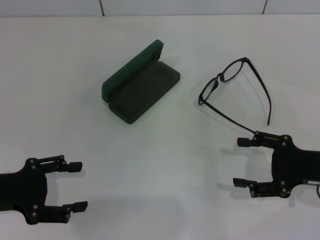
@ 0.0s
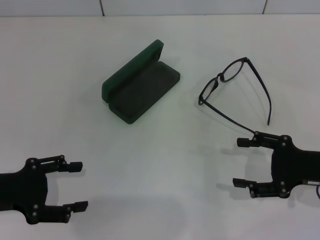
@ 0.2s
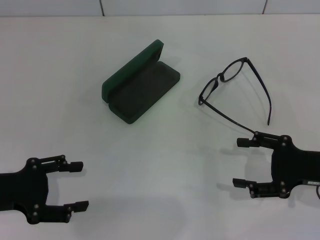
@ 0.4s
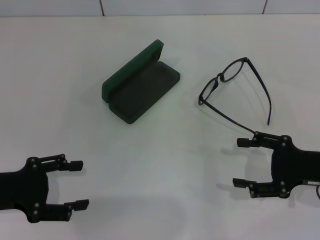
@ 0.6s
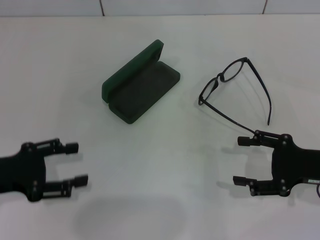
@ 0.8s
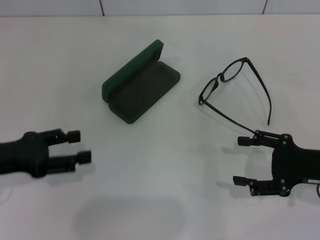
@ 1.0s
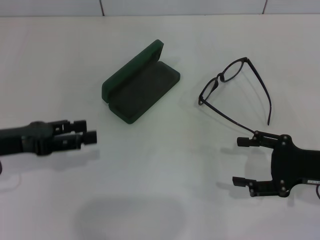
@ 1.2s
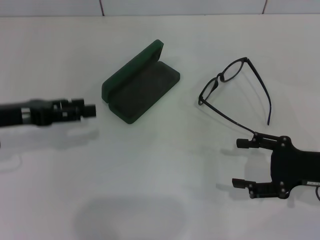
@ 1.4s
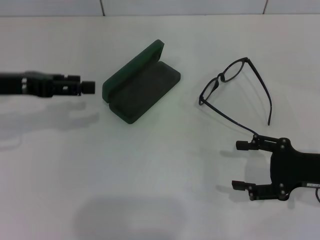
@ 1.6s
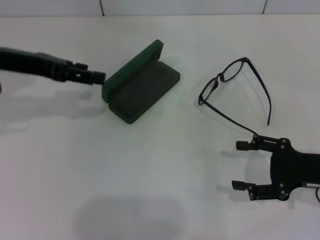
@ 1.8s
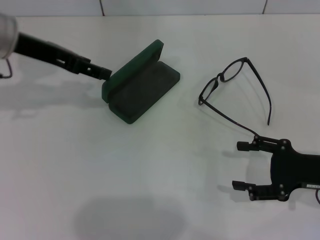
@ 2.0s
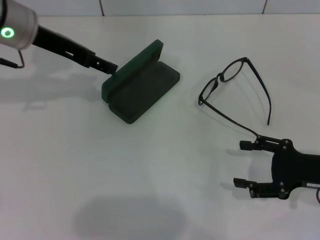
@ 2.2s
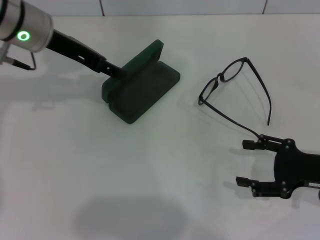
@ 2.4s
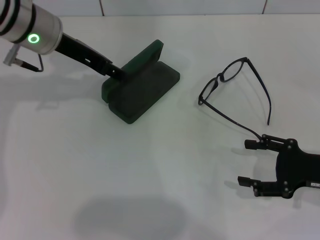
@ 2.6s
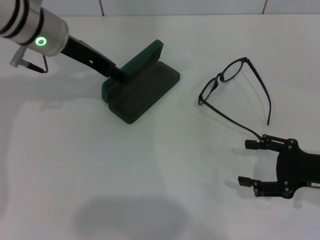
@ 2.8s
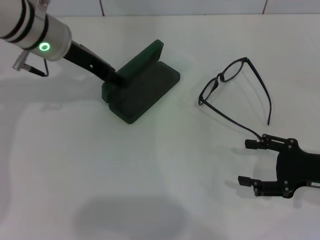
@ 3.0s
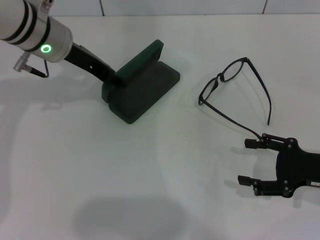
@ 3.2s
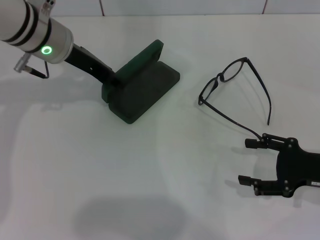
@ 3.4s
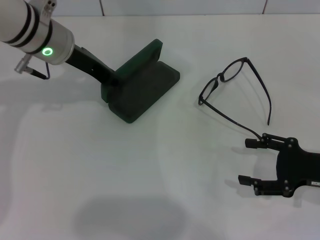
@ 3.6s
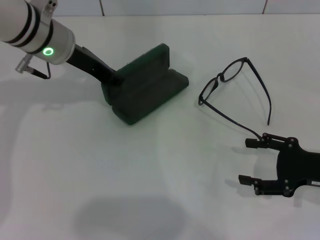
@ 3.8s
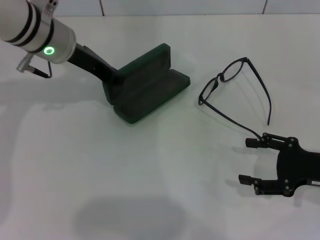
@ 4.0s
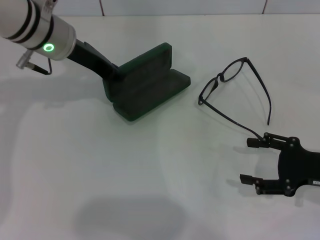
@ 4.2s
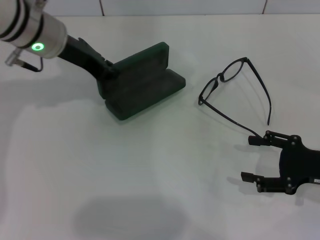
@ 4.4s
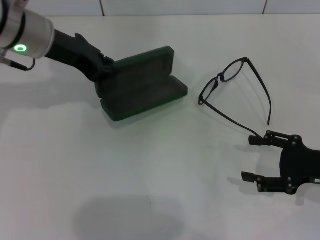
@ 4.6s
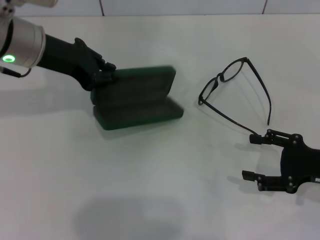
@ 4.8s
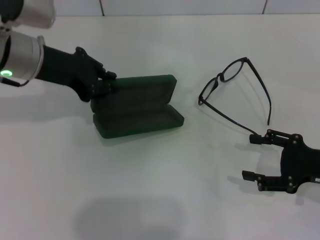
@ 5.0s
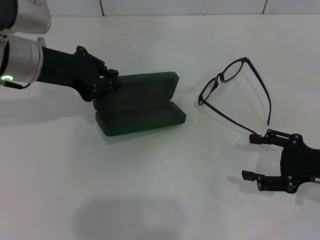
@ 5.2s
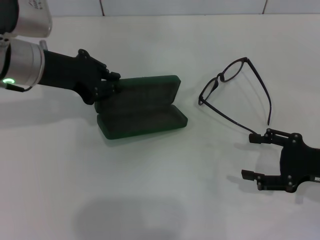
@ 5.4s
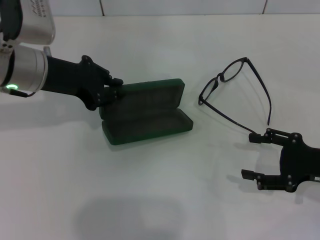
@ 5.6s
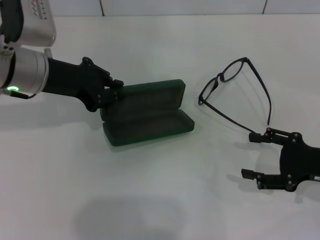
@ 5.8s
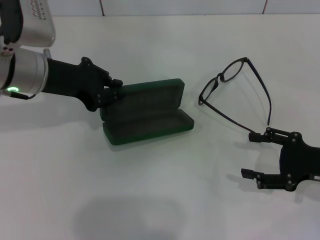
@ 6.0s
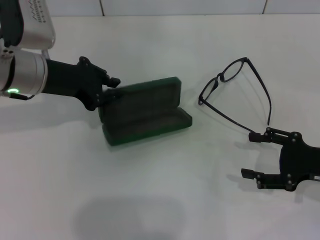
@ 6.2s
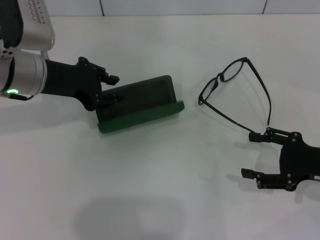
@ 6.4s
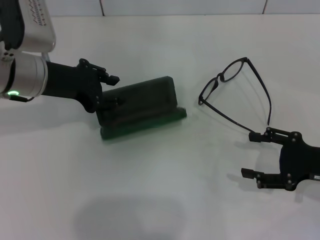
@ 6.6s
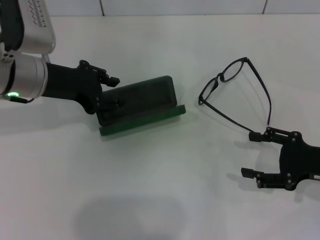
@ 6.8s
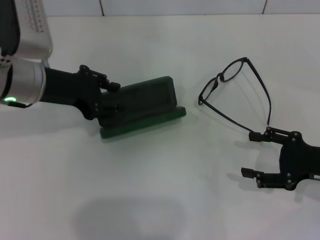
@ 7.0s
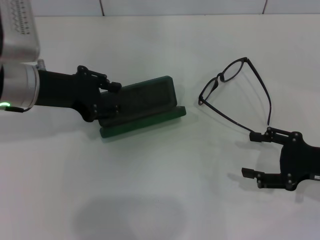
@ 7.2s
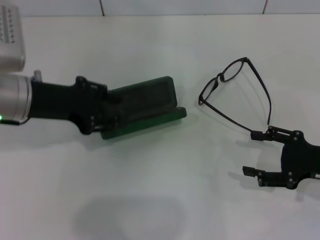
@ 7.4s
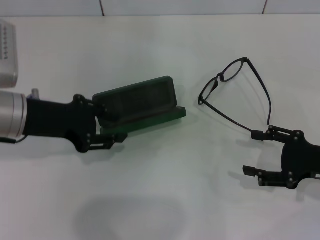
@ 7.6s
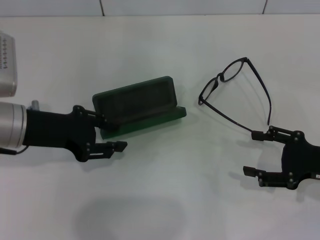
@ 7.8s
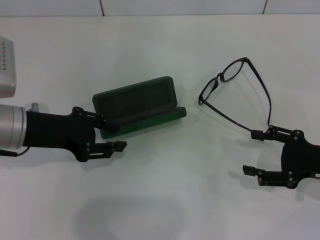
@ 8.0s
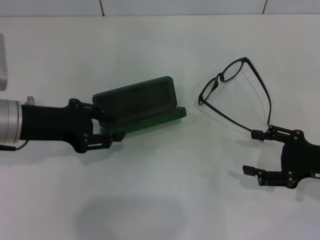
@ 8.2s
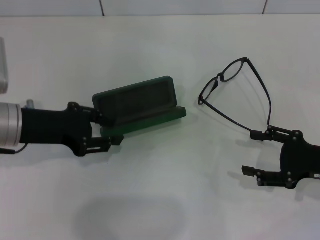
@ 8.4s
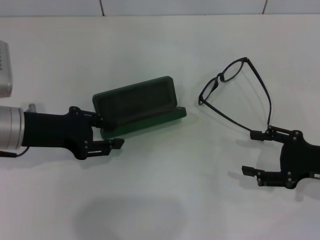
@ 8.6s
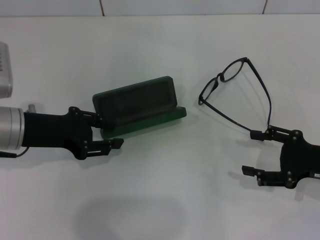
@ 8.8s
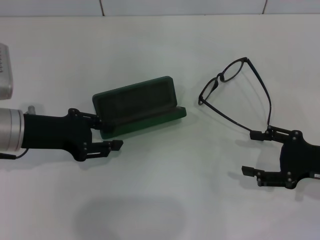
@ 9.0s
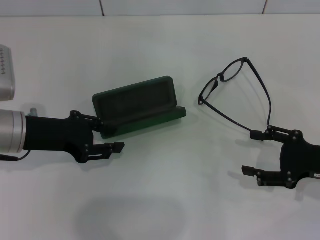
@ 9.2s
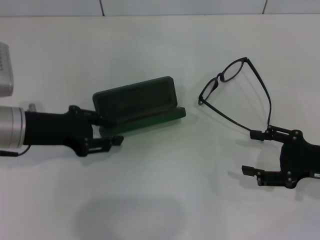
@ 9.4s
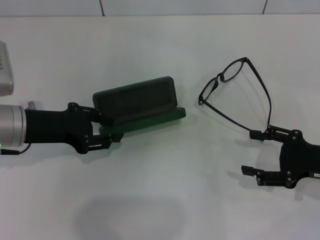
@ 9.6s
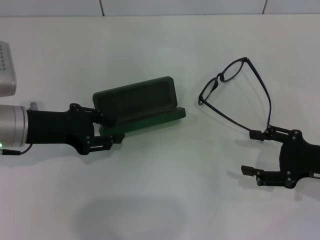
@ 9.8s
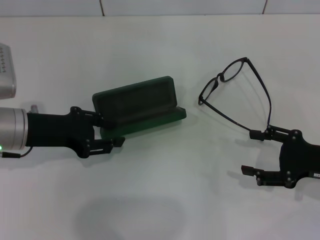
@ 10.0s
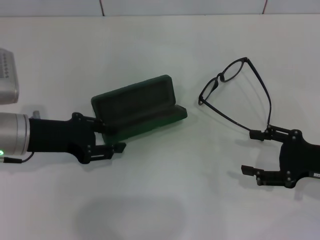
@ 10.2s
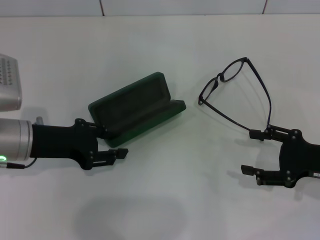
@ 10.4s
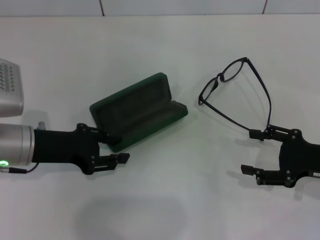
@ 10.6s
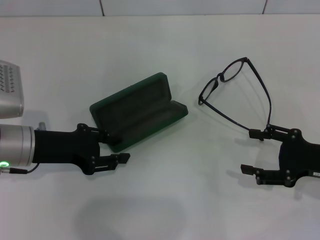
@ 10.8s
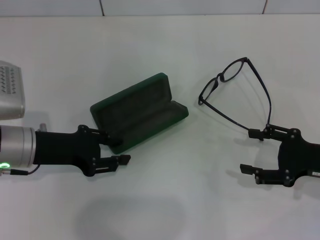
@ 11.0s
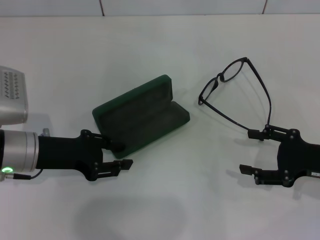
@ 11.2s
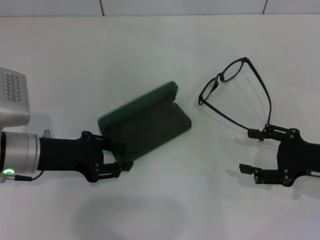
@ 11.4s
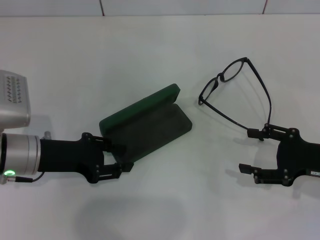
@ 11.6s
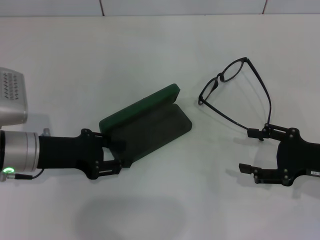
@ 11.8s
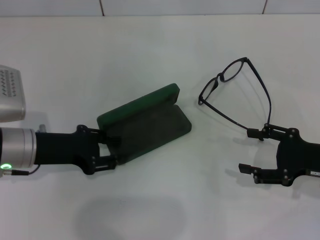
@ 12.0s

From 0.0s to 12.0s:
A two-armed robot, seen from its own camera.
Step, from 0.0s to 3.8s: Grab the glasses case with your left hand.
From 0.0s to 1.6s: The left gripper goes about 15 cm forward and upward.
From 1.6s to 3.0s: The left gripper shifts approximately 15 cm to the right and forward.
From 3.0s to 4.4s: The left gripper closes.
From 4.4s to 6.0s: The left gripper shifts by about 5 cm.
From 6.0s to 7.6s: The left gripper heads backward, covering roughly 5 cm.
From 7.6s to 10.4s: The grippers stay close to where they were, moving slightly.
From 10.4s to 12.0s: The grippers move only a little.

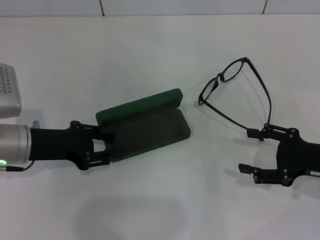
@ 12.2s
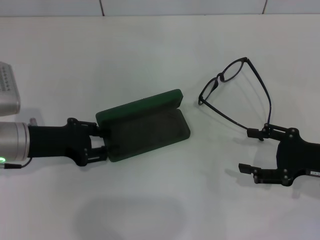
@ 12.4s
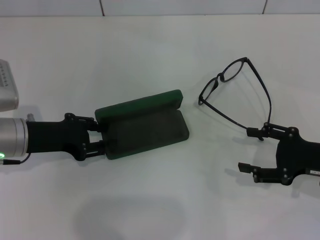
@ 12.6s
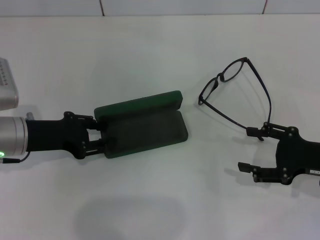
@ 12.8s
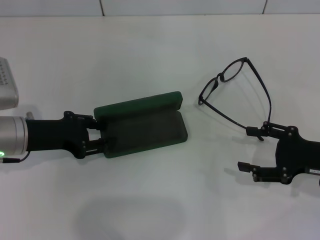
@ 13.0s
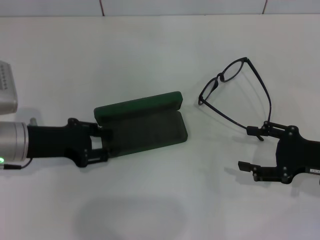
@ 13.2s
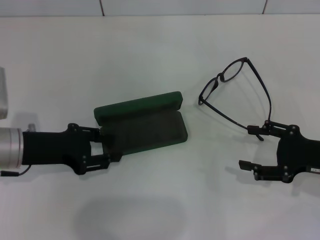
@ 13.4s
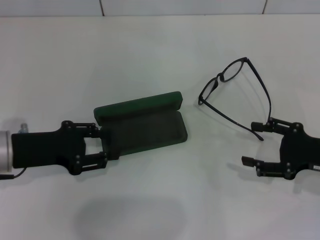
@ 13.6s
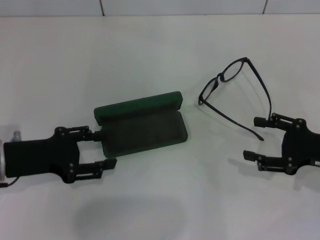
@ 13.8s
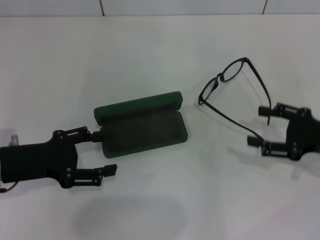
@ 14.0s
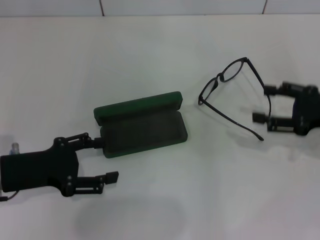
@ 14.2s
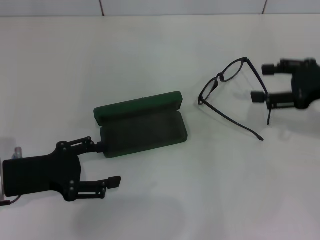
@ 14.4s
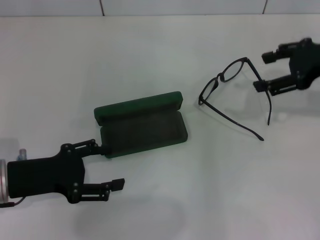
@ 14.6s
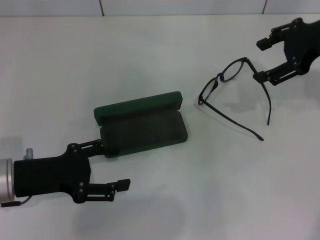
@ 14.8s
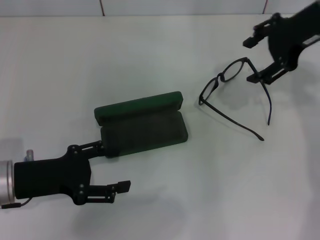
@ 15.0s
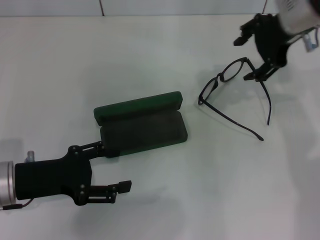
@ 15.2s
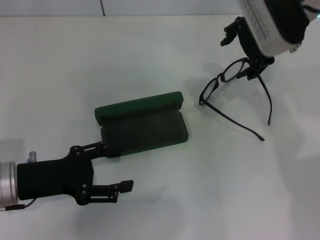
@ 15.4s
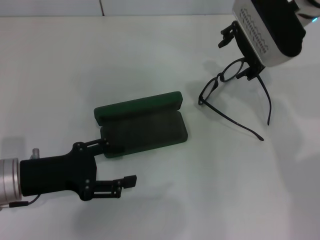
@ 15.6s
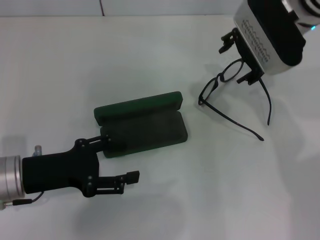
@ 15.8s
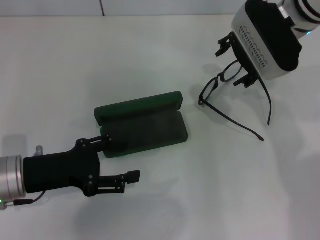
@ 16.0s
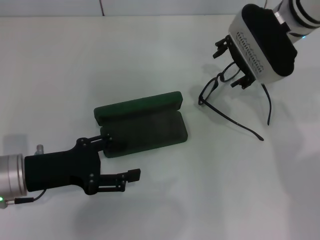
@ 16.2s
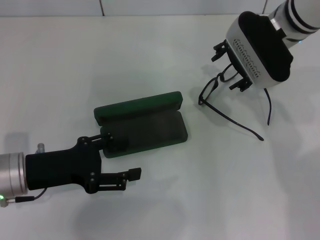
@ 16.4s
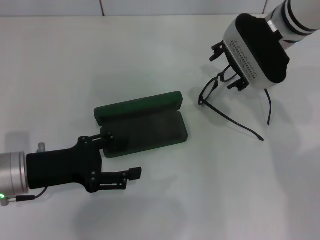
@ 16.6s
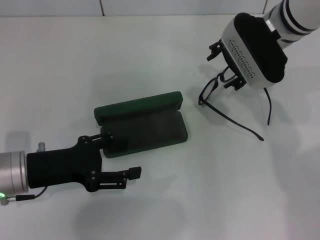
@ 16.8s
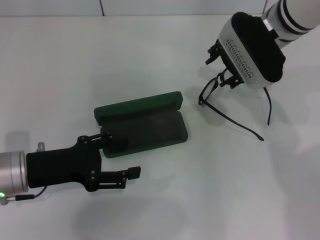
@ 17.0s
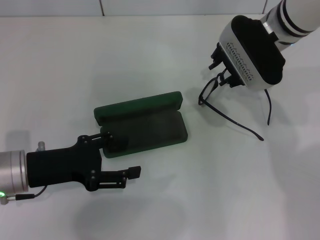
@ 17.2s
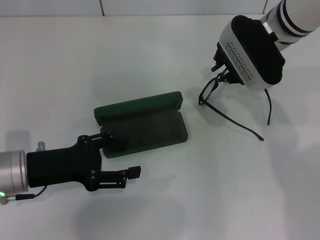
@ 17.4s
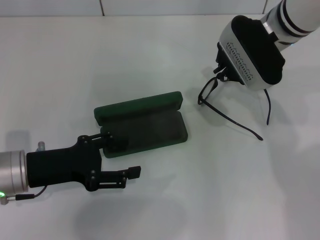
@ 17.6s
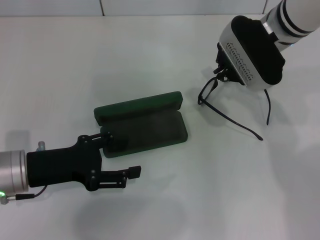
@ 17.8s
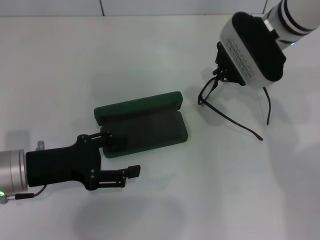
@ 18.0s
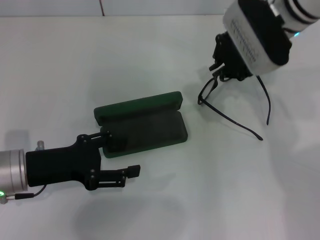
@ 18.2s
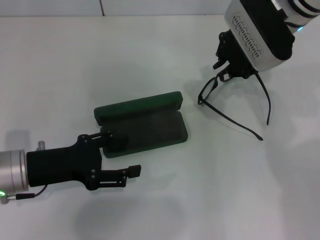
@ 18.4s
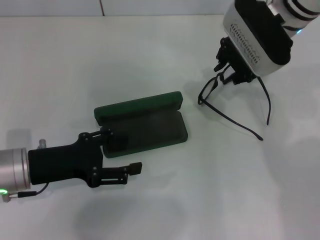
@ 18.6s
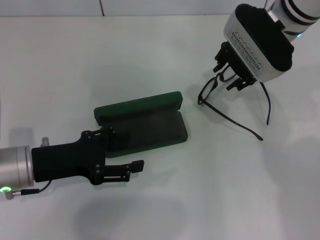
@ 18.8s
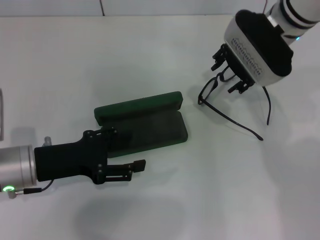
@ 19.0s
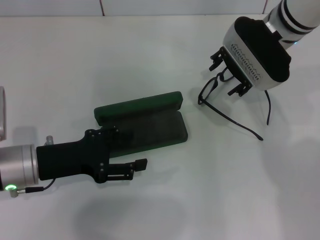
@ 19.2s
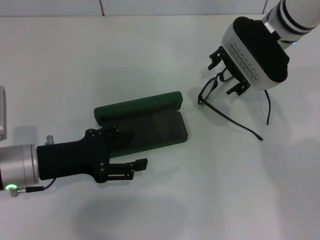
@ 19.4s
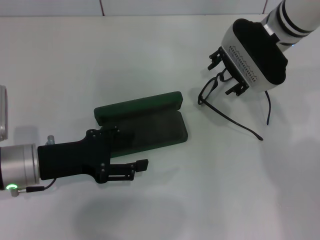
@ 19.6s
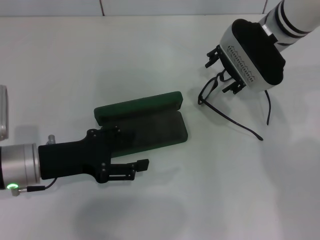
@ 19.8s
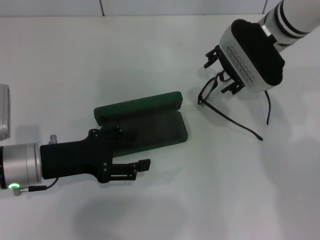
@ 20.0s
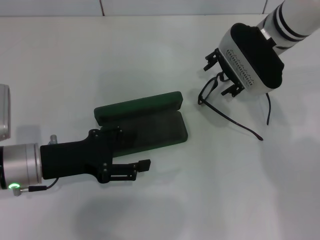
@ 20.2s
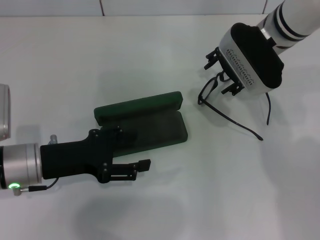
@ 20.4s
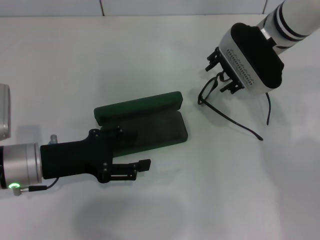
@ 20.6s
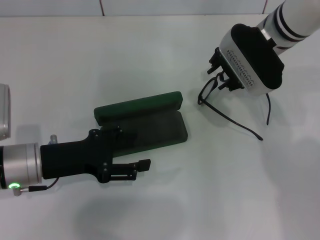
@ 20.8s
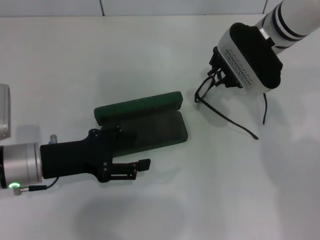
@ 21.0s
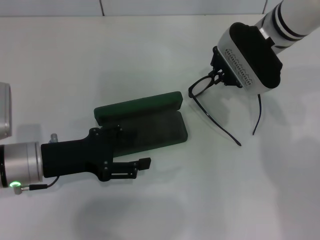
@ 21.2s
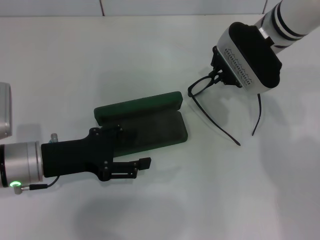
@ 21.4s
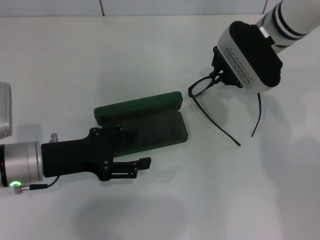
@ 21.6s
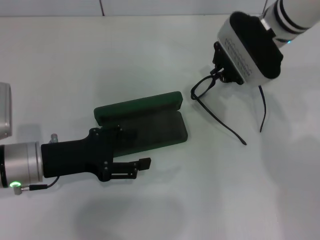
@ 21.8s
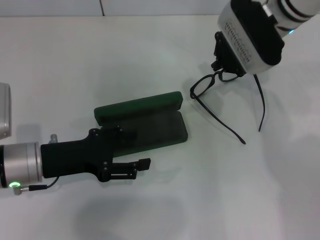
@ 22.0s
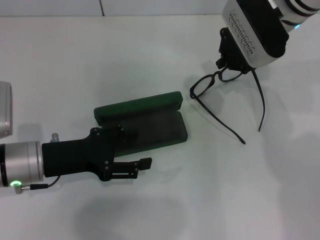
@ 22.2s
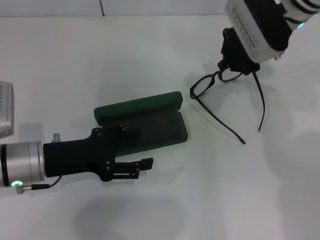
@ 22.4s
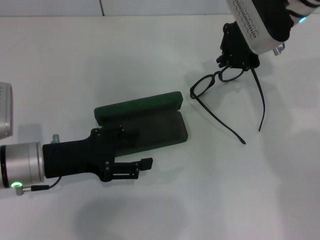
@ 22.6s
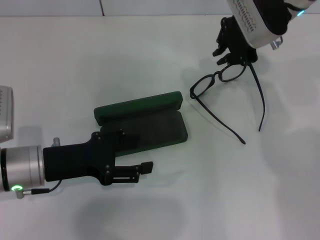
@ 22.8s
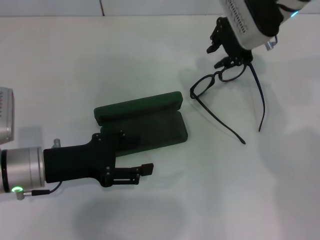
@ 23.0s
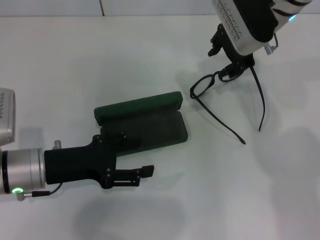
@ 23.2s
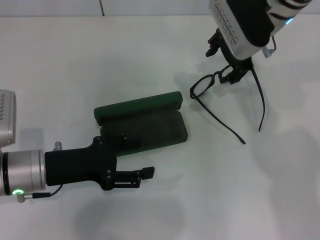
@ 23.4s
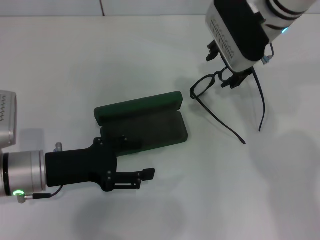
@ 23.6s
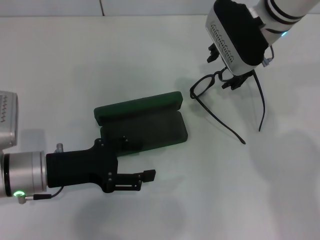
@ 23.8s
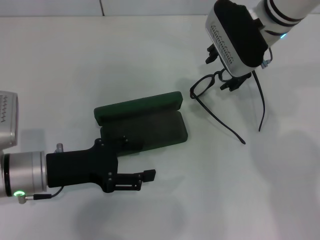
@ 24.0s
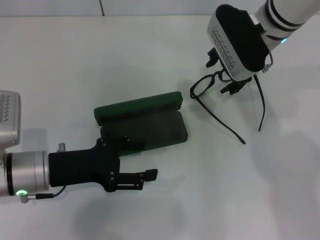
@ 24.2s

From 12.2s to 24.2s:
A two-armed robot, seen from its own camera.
From 12.2s to 13.8s: There are only small adjustments of the grippers.
From 13.8s to 15.2s: The right gripper goes roughly 25 cm upward, forward and to the left. Meanwhile the left gripper opens.
From 15.2s to 16.6s: The right gripper moves downward, approximately 5 cm.
From 16.6s to 18.2s: The right gripper closes up.
From 18.2s to 19.8s: The right gripper opens.
From 19.8s to 21.2s: The right gripper closes its fingers.
From 21.2s to 22.6s: The grippers stay close to where they were, moving slightly.
From 22.6s to 24.2s: The right gripper opens up.
